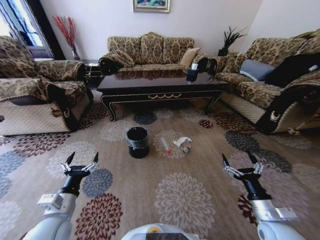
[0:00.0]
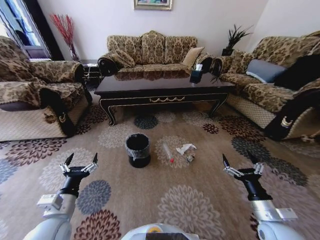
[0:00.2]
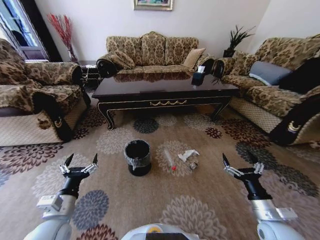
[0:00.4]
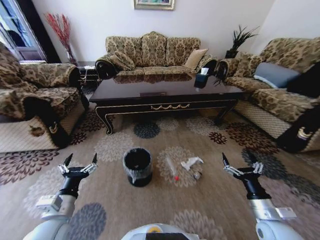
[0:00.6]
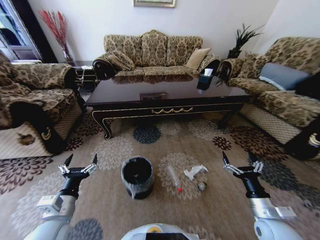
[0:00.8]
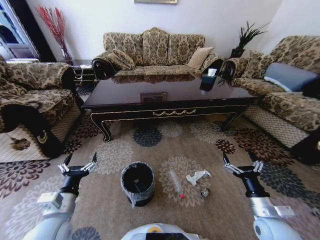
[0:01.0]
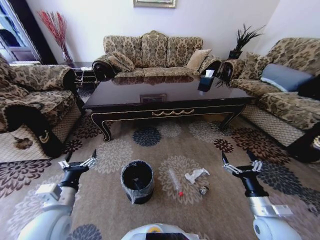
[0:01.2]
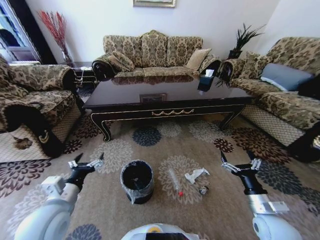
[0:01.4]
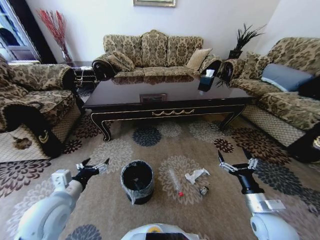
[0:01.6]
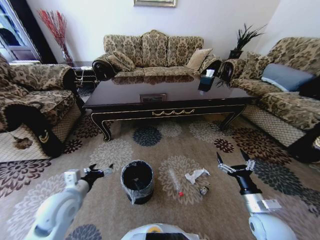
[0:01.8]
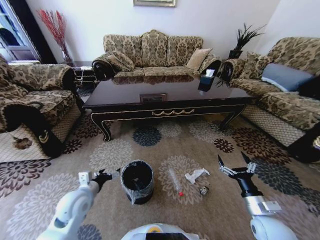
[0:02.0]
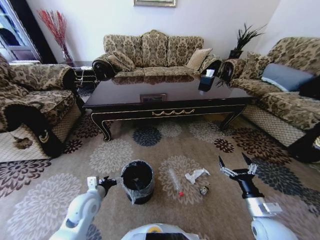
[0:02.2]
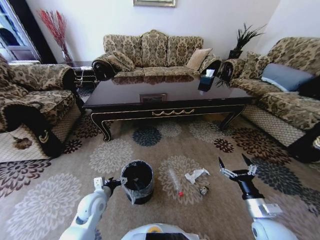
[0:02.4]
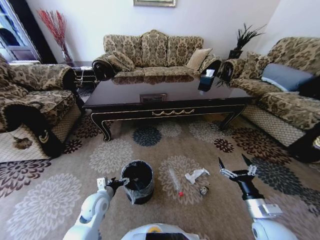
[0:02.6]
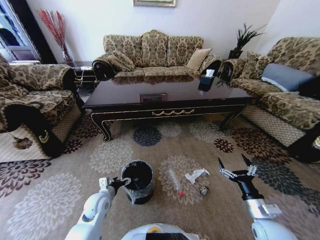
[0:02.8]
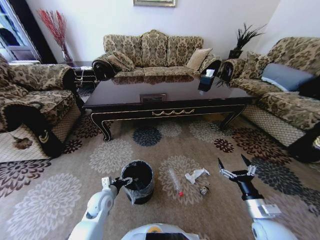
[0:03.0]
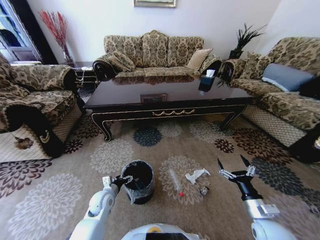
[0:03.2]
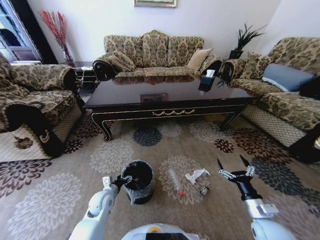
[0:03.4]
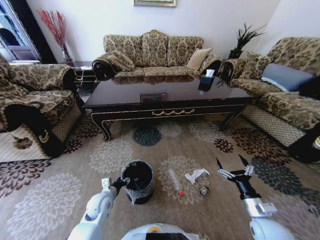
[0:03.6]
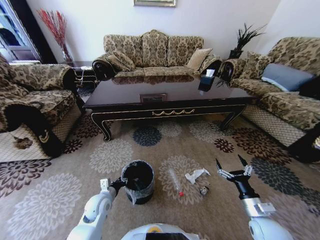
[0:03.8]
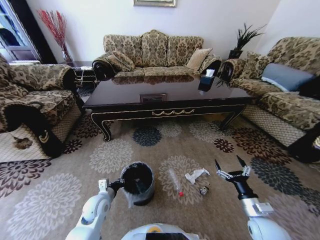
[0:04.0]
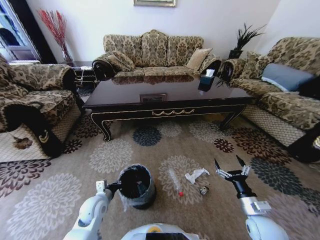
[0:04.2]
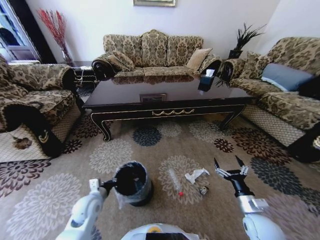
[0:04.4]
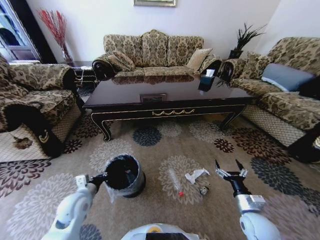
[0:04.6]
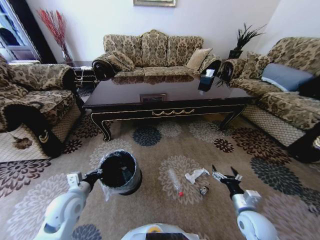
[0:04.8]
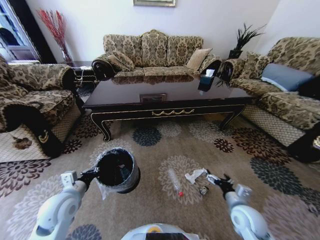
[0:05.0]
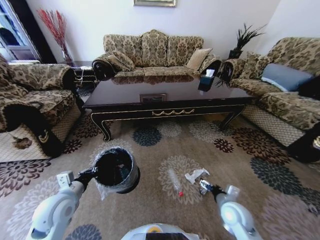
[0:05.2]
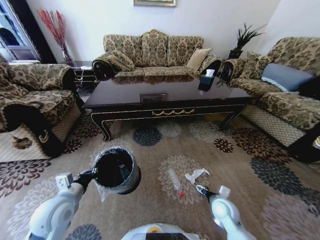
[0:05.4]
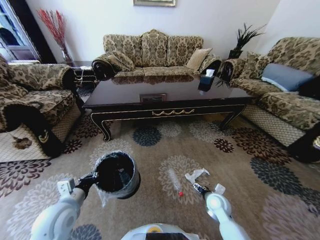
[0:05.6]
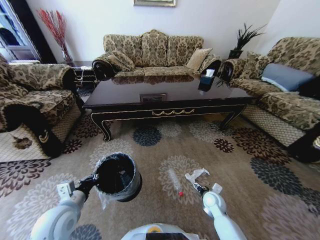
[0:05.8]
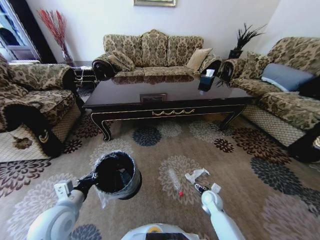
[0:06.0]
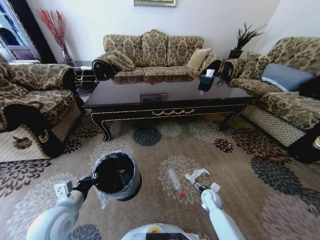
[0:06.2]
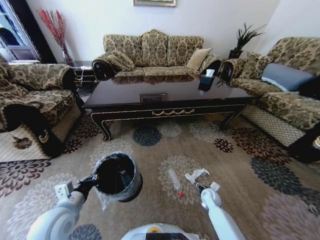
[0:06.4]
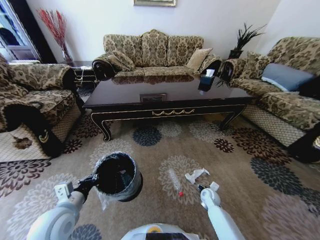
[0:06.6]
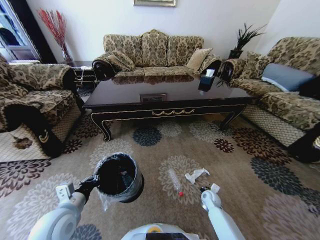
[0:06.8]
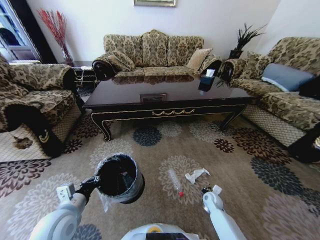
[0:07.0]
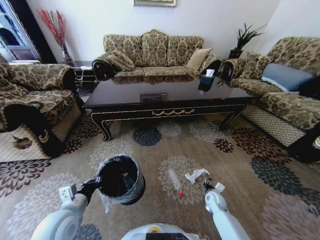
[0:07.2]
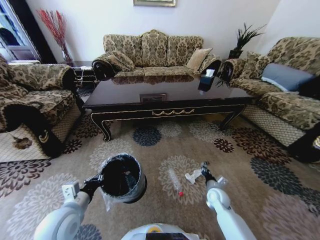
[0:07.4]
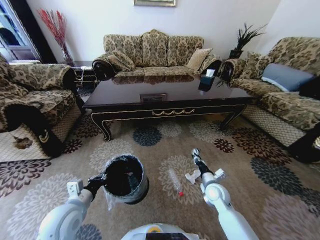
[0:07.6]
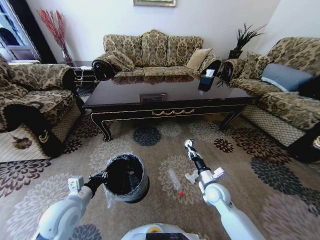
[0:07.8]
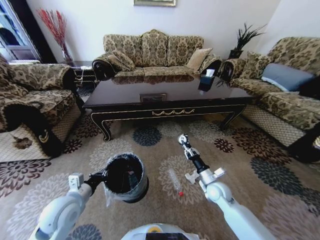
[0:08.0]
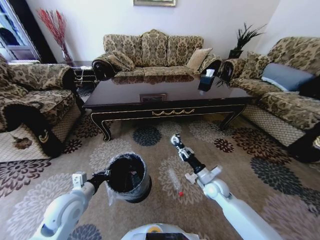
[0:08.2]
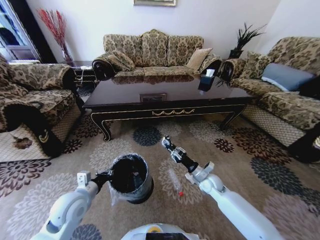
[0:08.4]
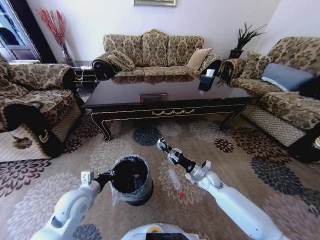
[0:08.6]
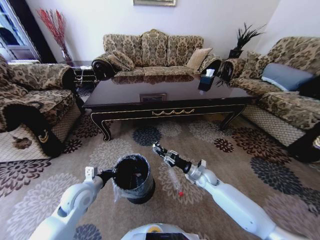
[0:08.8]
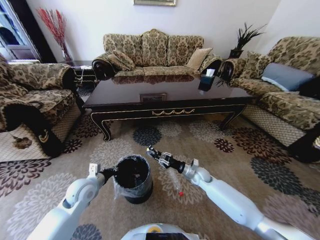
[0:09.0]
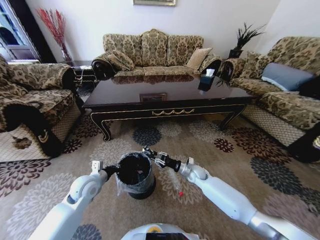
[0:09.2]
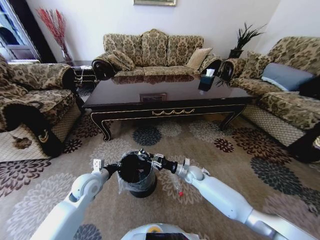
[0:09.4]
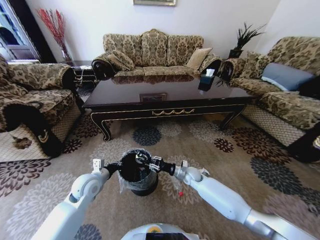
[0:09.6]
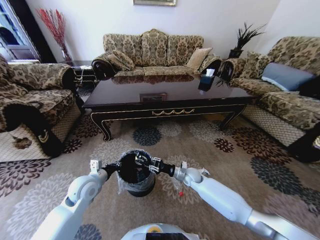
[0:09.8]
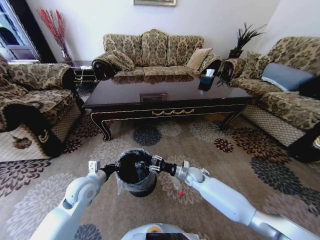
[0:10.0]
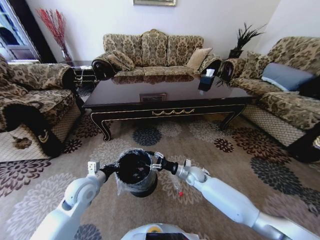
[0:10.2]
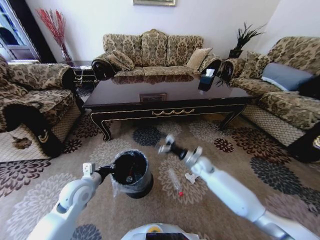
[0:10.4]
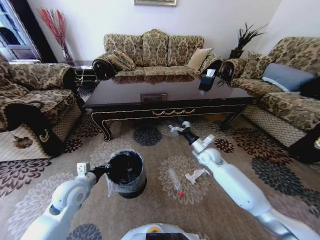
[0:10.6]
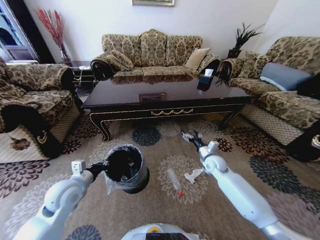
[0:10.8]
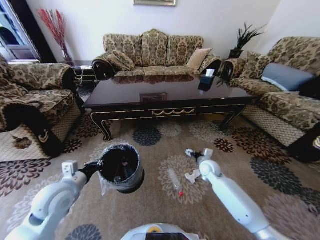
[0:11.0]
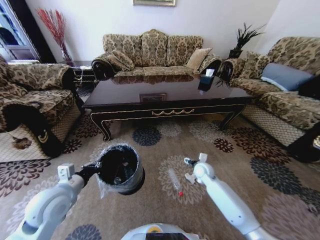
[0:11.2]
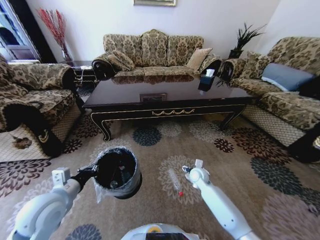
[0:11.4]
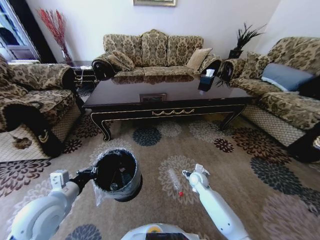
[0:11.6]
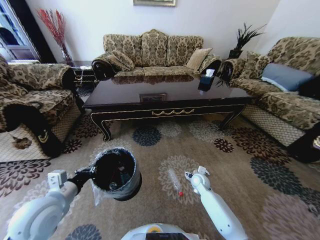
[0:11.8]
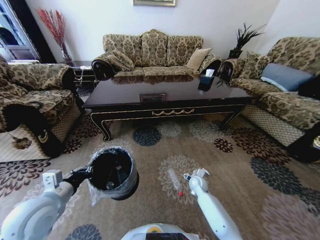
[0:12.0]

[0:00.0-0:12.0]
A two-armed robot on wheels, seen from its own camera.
Task of the whole recording: Move to the front of the table and pick up the trash from the floor, then place it into the trash bin.
0:00.0 to 0:01.6: The left gripper moves upward, approximately 5 cm.
0:01.6 to 0:03.0: The left gripper heads downward and forward, covering roughly 20 cm.
0:03.0 to 0:04.4: The left gripper ends up about 5 cm from where it was, and closes its fingers.
0:04.4 to 0:06.0: The right gripper is displaced forward, downward and to the left by some 20 cm, while the left gripper heads upward and backward, covering roughly 15 cm.
0:06.0 to 0:07.6: The right gripper goes about 10 cm upward, and closes up.
0:07.6 to 0:09.0: Both grippers move forward, roughly 10 cm.
0:09.0 to 0:10.4: The right gripper shifts roughly 5 cm upward, and opens.
0:10.4 to 0:12.0: The left gripper travels backward and upward by approximately 10 cm; the right gripper travels downward by roughly 15 cm.

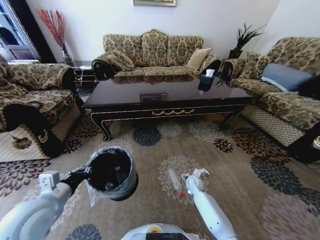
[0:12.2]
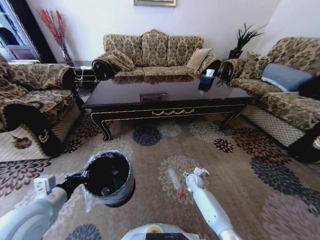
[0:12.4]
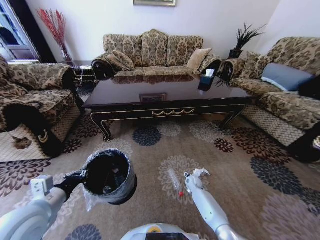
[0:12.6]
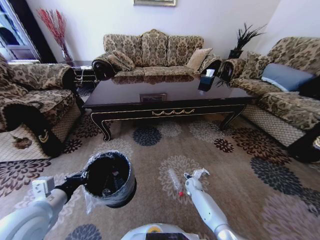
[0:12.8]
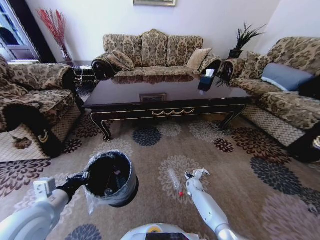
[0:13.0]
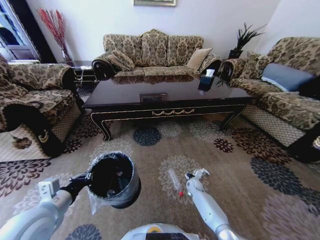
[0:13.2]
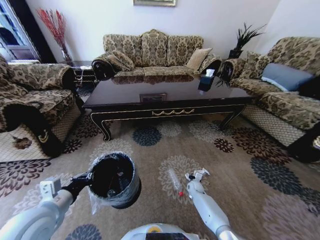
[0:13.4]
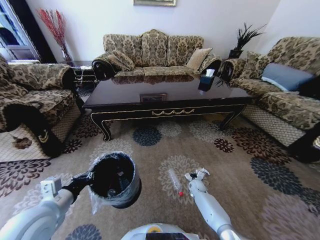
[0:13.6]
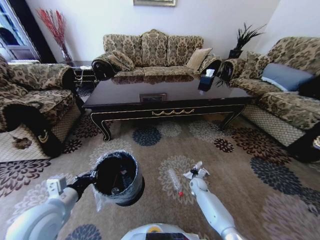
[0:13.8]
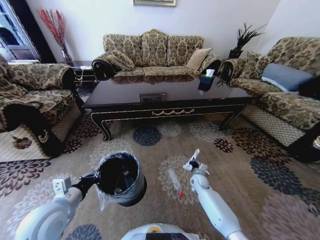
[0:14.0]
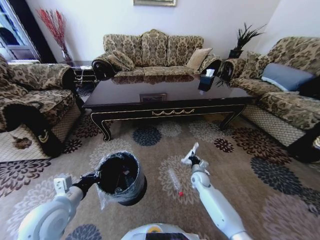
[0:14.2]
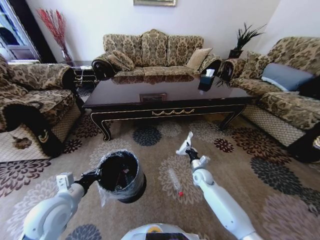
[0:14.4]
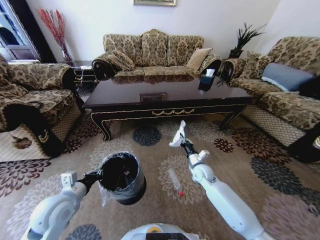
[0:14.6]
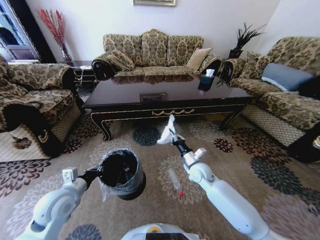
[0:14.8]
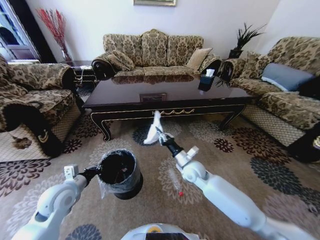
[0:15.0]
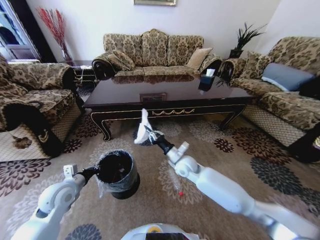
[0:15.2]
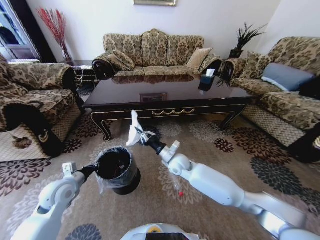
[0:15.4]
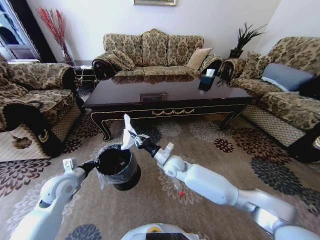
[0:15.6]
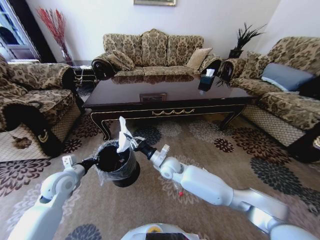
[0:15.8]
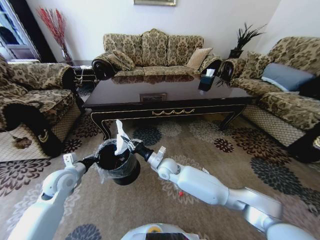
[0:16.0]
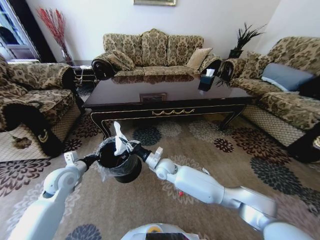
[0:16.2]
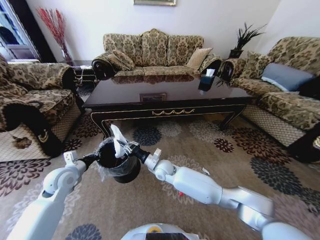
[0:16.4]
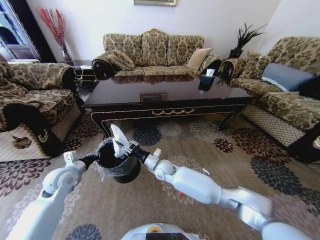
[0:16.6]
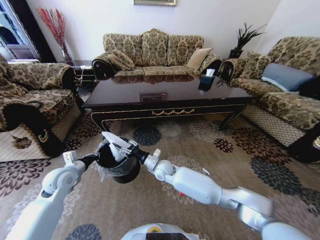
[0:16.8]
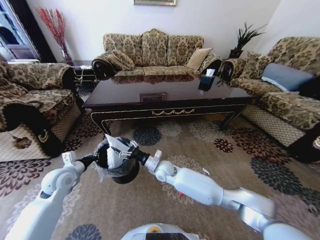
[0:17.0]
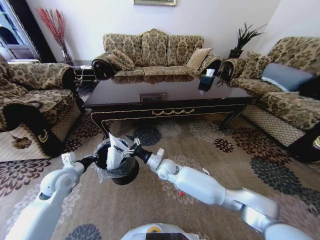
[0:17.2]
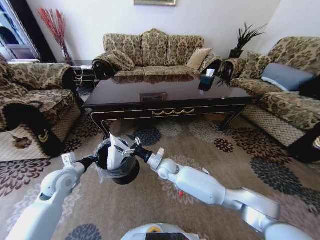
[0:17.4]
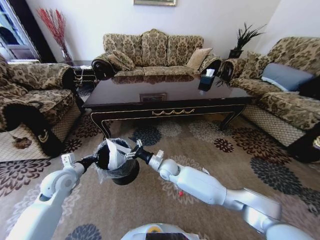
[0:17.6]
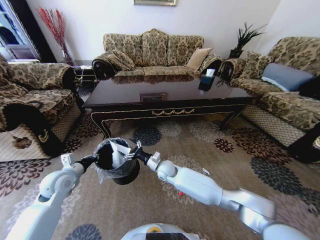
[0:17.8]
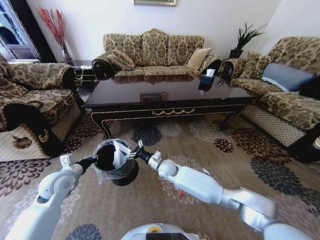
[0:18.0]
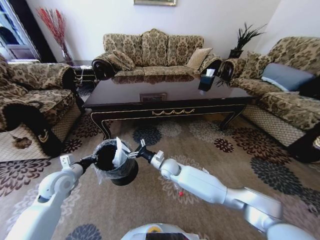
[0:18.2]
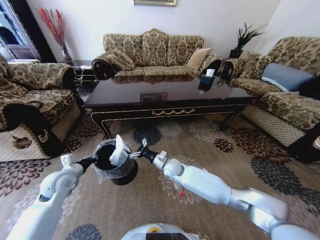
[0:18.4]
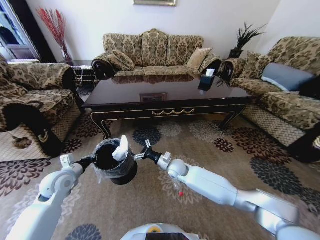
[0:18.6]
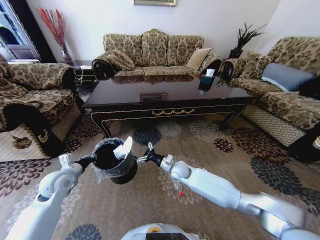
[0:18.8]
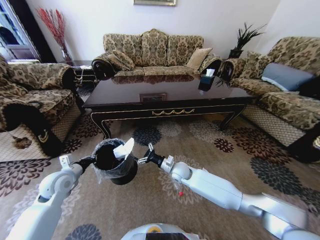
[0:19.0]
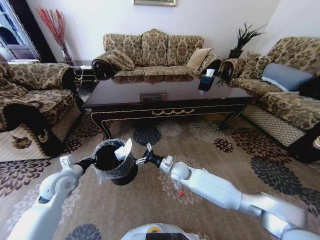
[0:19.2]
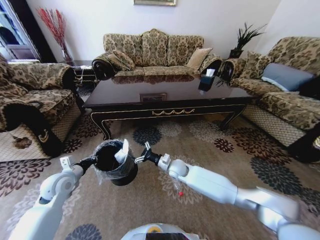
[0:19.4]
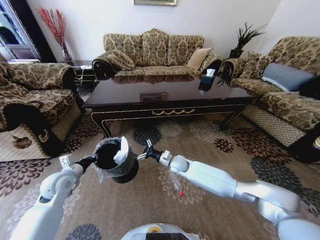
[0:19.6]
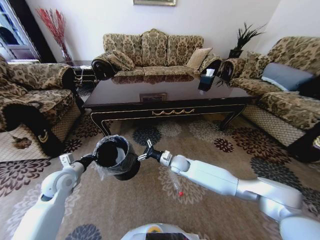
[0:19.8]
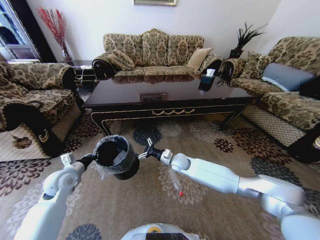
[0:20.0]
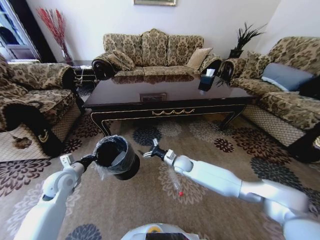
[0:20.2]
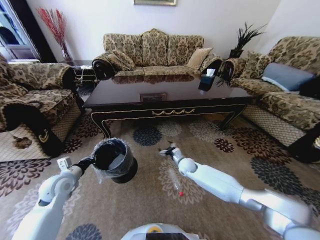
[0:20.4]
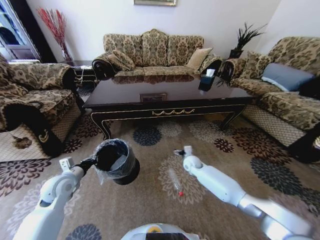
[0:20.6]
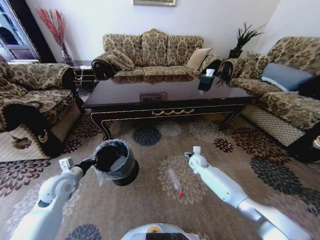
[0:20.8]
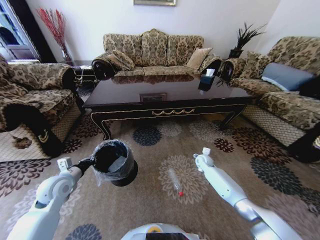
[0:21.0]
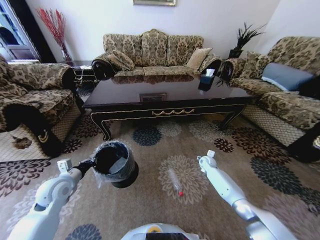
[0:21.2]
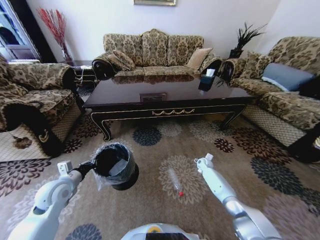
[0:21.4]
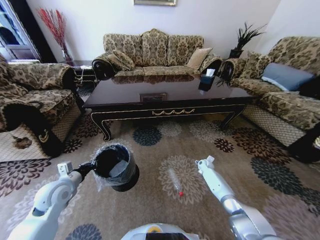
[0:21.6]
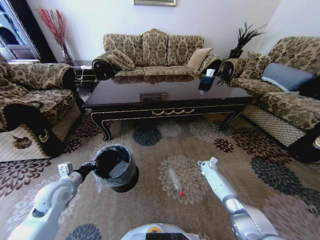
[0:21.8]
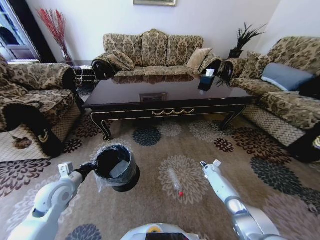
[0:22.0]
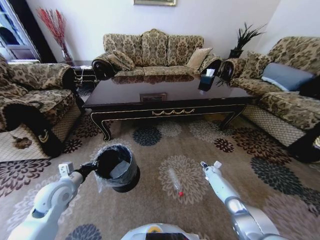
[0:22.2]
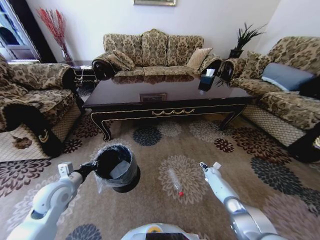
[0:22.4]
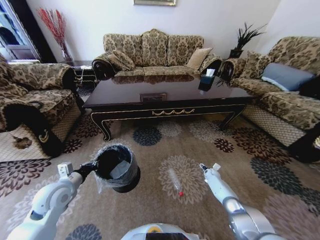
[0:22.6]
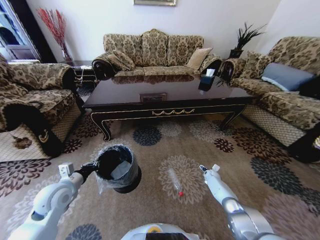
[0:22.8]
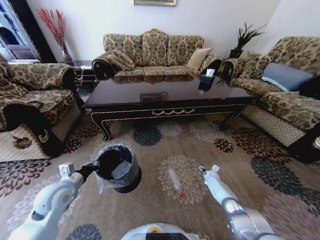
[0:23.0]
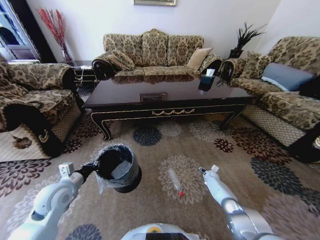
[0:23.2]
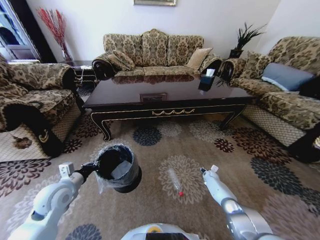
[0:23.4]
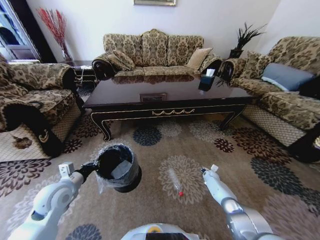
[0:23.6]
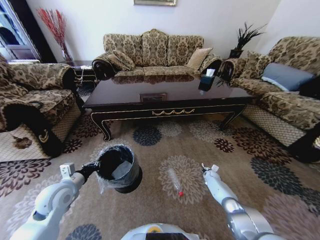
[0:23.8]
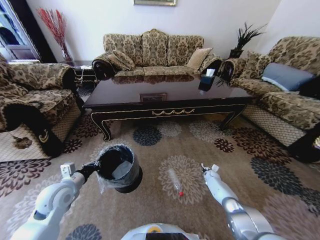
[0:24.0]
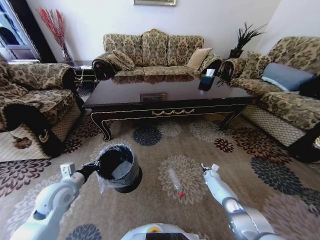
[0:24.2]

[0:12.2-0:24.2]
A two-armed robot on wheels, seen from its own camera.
Task of the whole recording: Move to the front of the table and pick up the trash from the floor, then place it into the trash bin.
0:12.2 to 0:13.8: The right gripper is displaced downward by some 5 cm, and closes its fingers.
0:13.8 to 0:15.2: The left gripper travels forward and downward by some 10 cm; the right gripper goes roughly 30 cm upward and to the left.
0:15.2 to 0:16.6: The right gripper is displaced to the left by approximately 10 cm. Meanwhile the left gripper heads forward, covering some 5 cm.
0:16.6 to 0:18.2: The right gripper opens.
0:18.2 to 0:19.8: The right gripper travels to the right by some 5 cm.
0:19.8 to 0:21.2: The right gripper moves to the right and downward, about 25 cm.
0:21.2 to 0:22.6: The right gripper is displaced downward and to the right by about 10 cm.
0:22.6 to 0:24.2: The right gripper closes.
